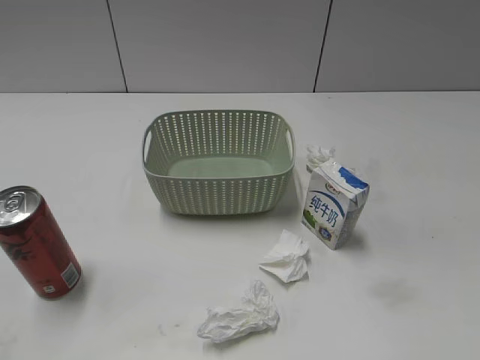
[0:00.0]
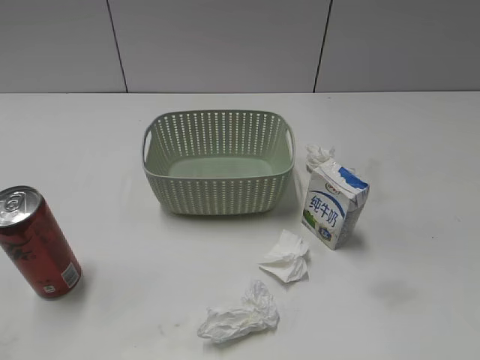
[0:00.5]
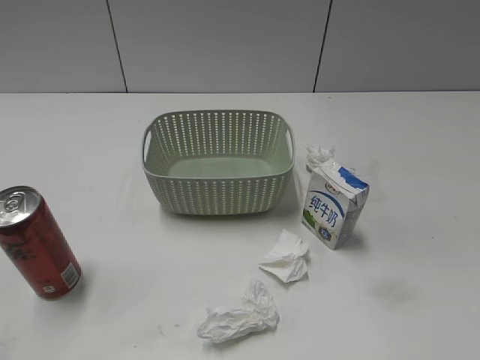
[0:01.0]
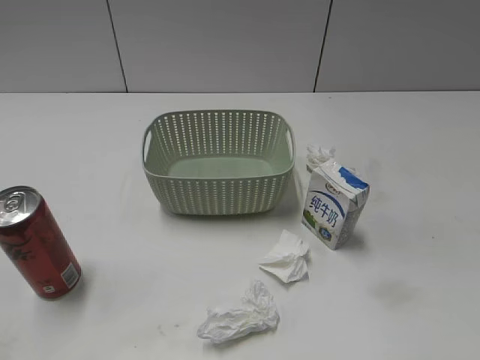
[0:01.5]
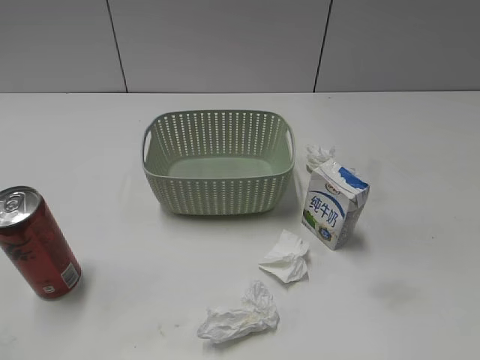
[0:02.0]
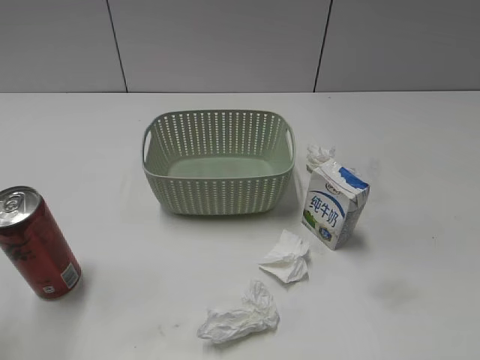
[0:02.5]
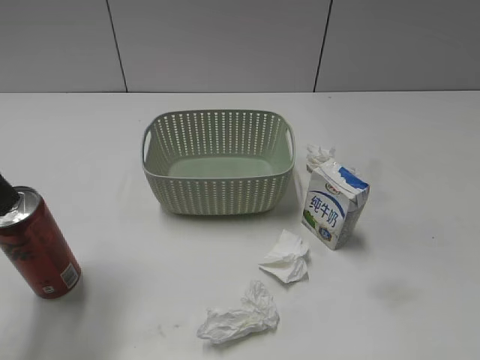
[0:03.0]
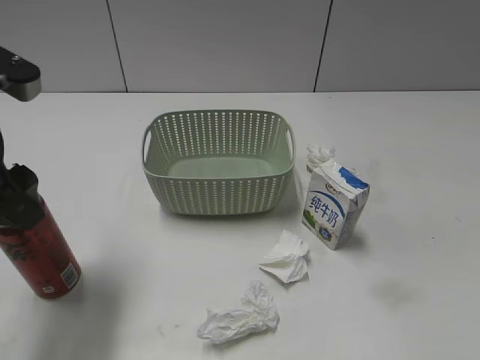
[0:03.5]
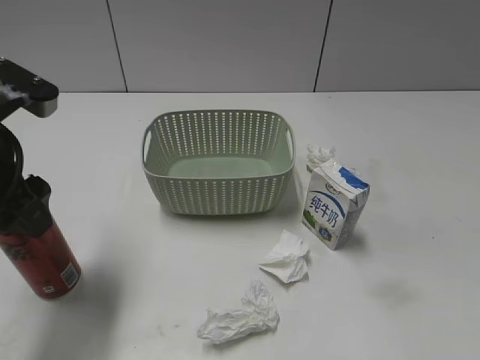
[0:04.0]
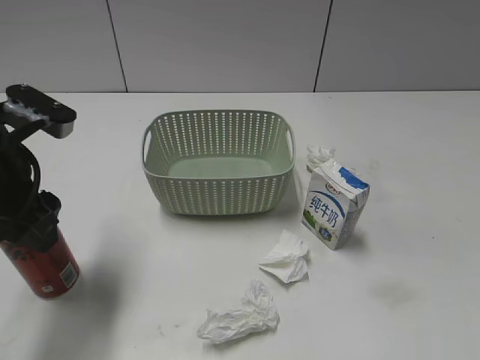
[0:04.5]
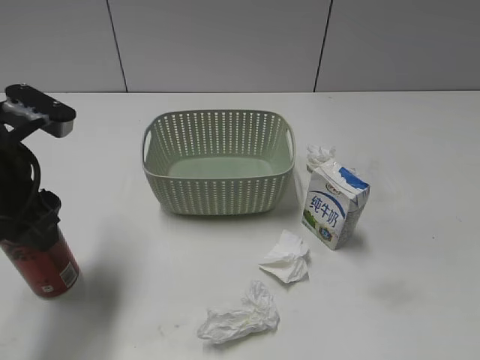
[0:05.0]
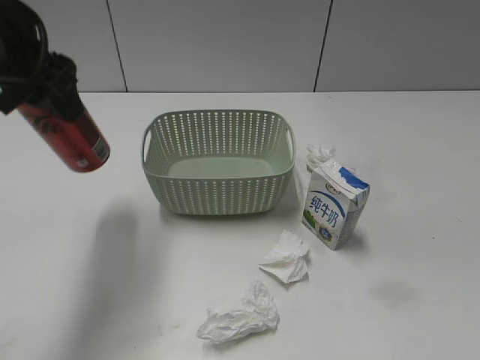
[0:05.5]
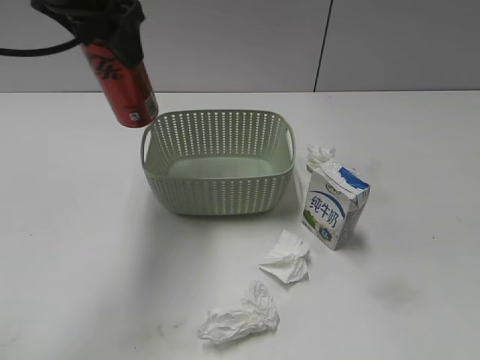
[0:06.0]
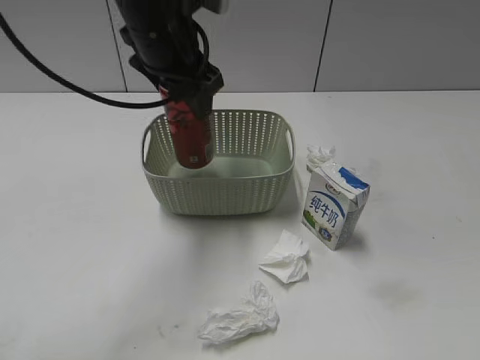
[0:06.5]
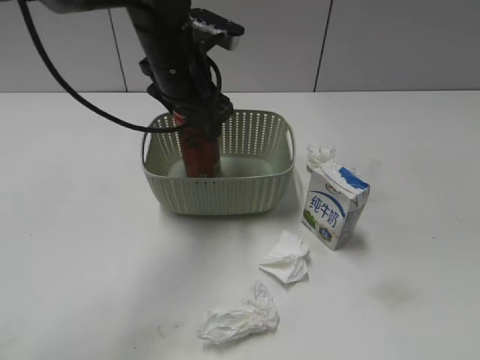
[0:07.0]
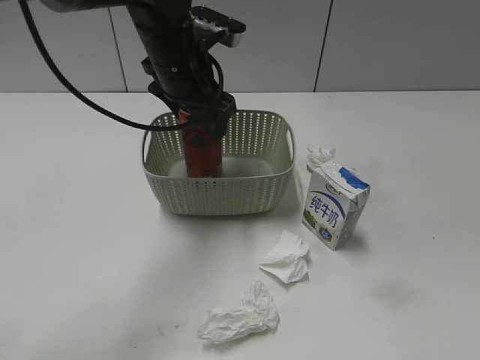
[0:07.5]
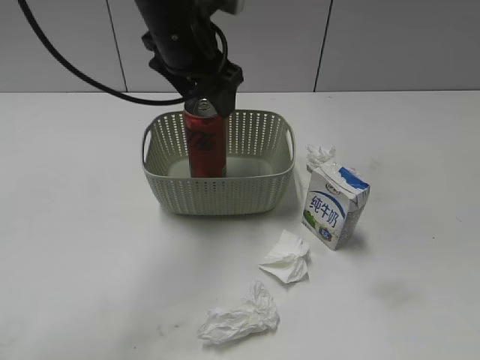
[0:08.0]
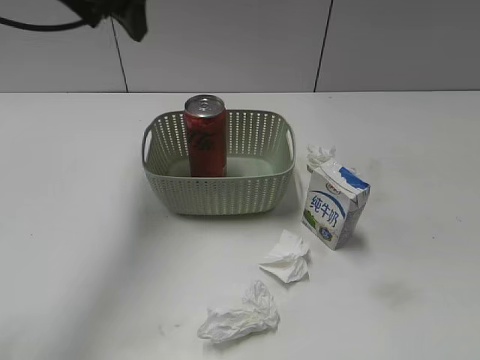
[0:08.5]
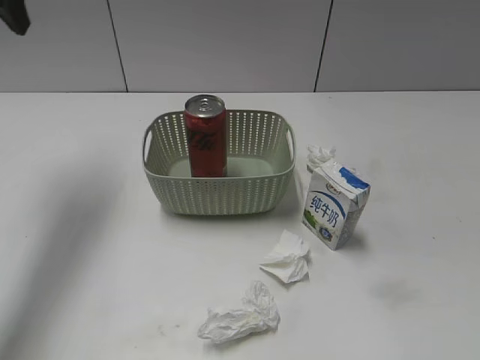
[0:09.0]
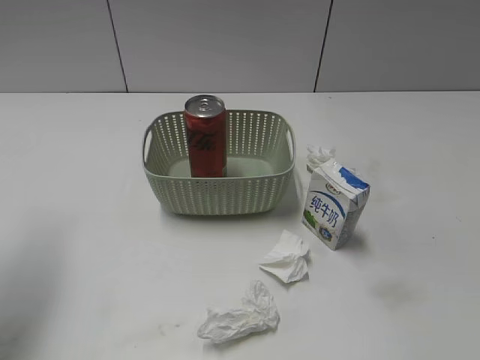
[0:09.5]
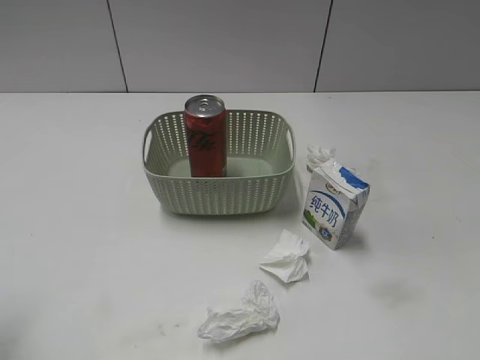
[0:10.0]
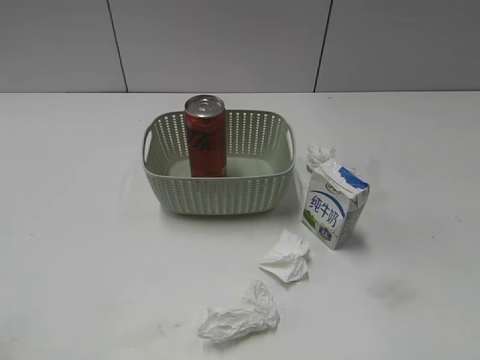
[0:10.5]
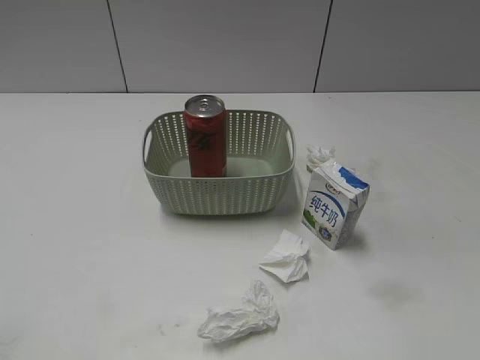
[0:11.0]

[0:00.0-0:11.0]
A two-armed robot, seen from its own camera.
Step, 0:03.0 to 0:04.5: Grasp the cola can with left gripper.
Step, 0:05.0 to 0:08.0: Place the cola can in the basket with left gripper.
0:02.0 to 0:03.5: The left gripper heads forward and to the right, covering roughly 20 cm.
0:03.5 to 0:05.5: The left gripper heads forward and upward, covering roughly 10 cm, and closes up.
0:05.5 to 0:07.5: The left gripper heads to the right, forward and downward, covering approximately 20 cm, and opens.
0:07.5 to 0:09.0: The left gripper travels to the left and upward by approximately 25 cm.
0:09.0 to 0:11.0: The left gripper moves backward, about 35 cm.

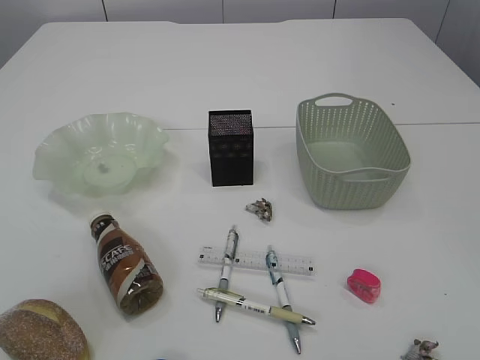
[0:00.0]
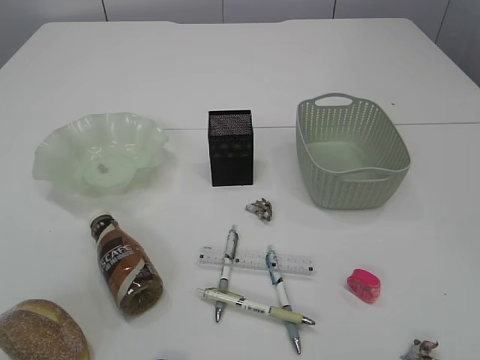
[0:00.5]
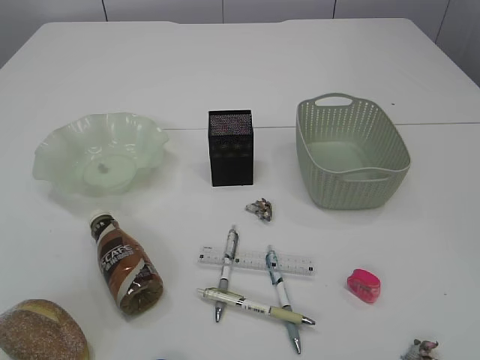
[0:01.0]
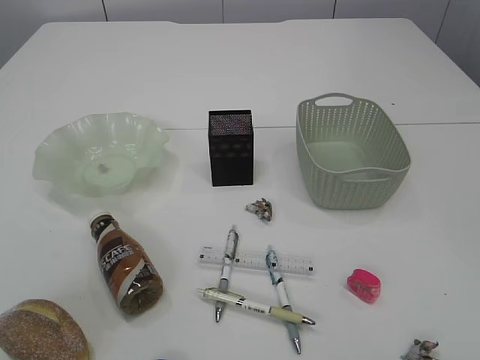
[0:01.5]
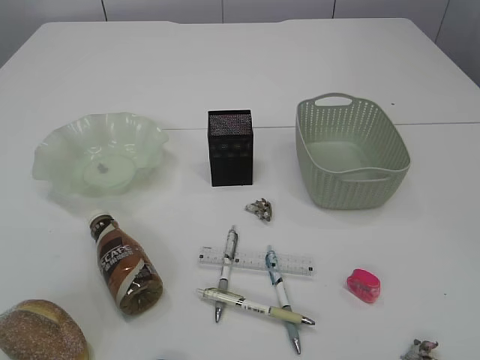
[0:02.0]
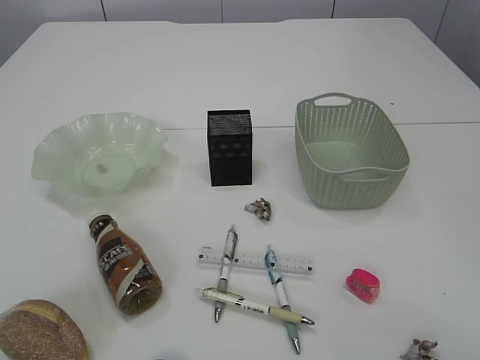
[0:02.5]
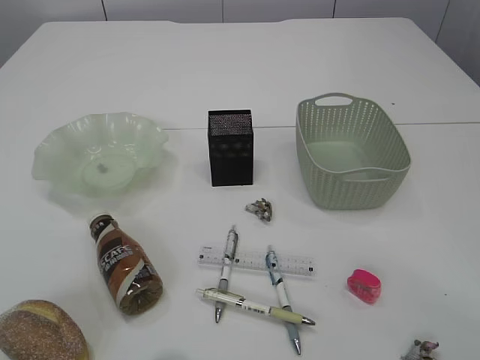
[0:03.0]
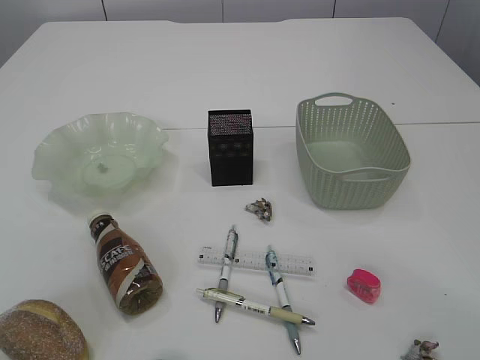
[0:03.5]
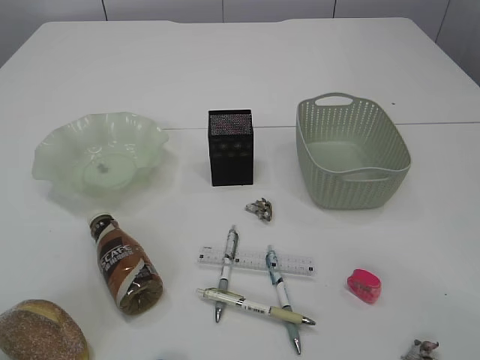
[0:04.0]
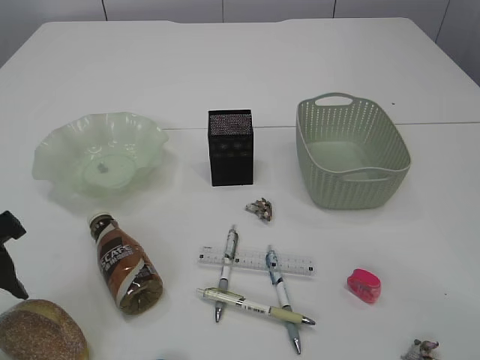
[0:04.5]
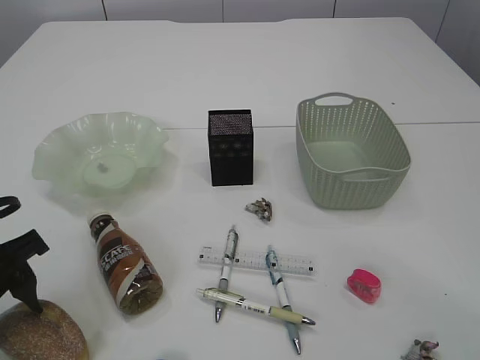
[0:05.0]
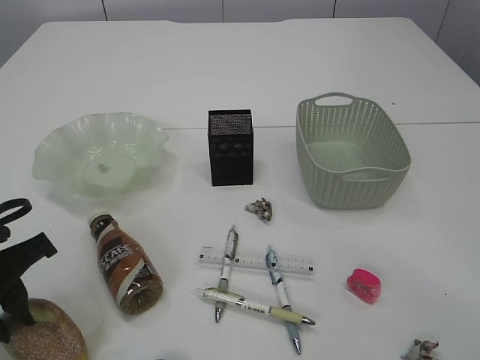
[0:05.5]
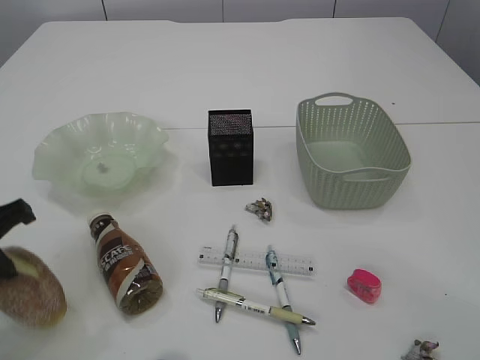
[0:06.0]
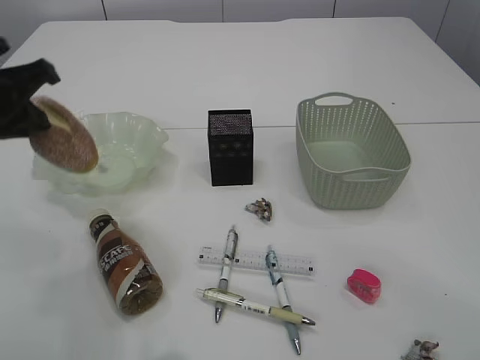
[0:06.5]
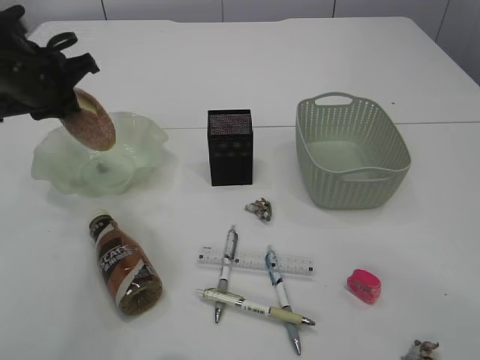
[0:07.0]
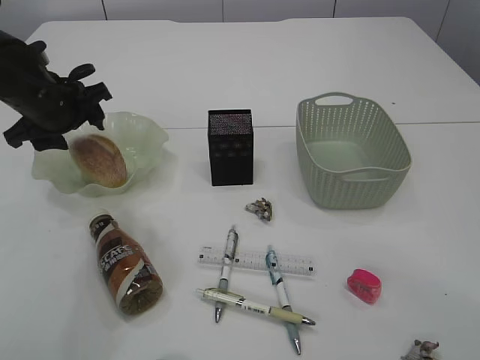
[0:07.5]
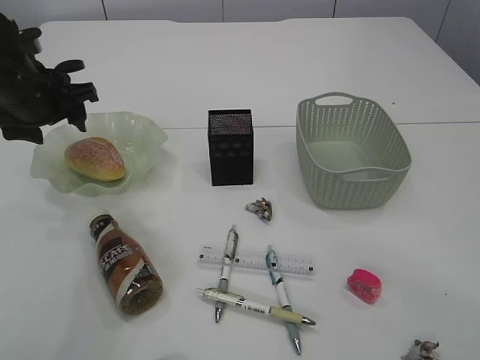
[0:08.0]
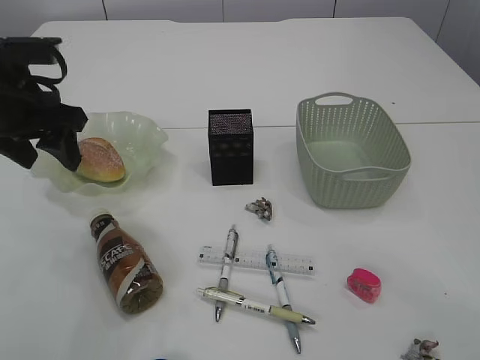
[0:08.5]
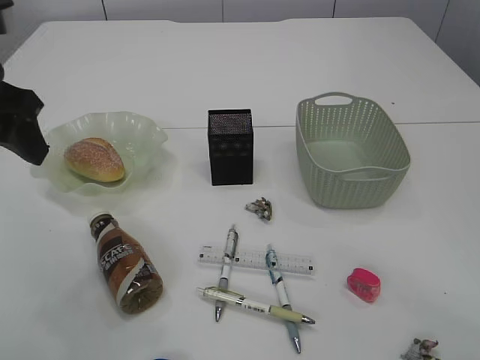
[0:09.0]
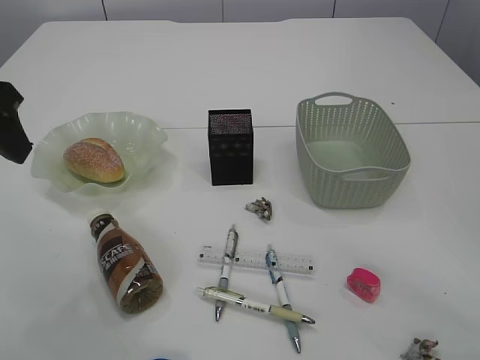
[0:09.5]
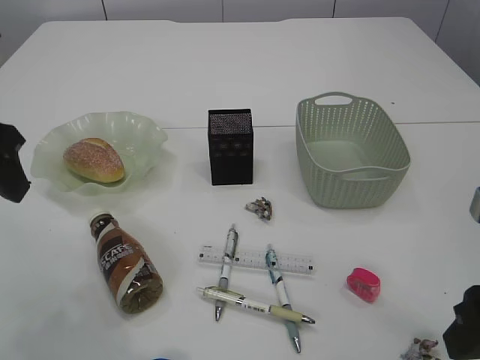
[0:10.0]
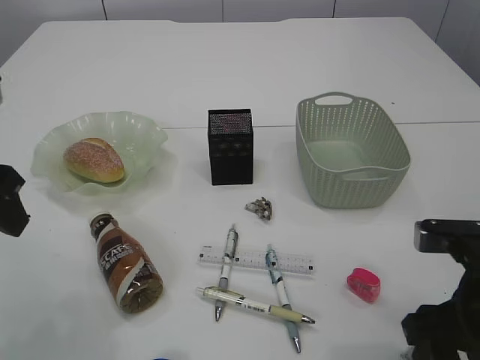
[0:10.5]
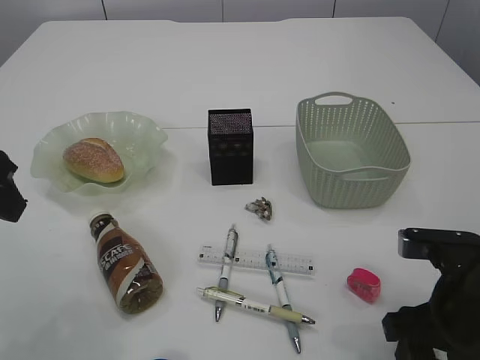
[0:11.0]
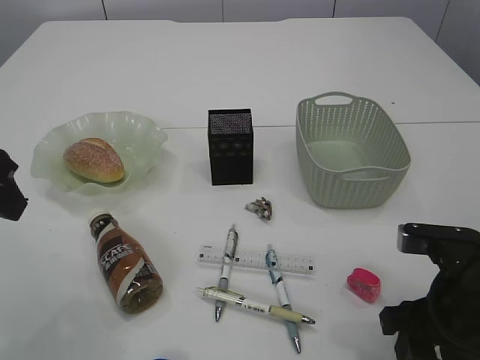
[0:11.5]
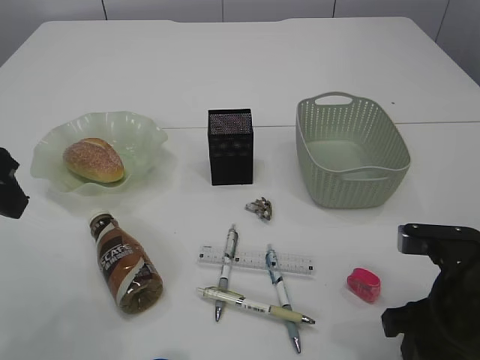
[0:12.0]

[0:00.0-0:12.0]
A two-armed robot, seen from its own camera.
Step, 0:06.5 to 0:09.0: place the bread in the plate.
0:04.0 to 0:06.0: The left gripper moves downward, approximately 5 cm, and closes up.
0:06.0 to 0:08.0: The left gripper moves forward, approximately 20 cm, and opens.
0:08.0 to 0:10.0: The left gripper travels backward and upward by roughly 15 cm. The right gripper is displaced downward and to the left by roughly 10 cm.
0:10.0 to 0:12.0: The right gripper heads downward, covering approximately 10 cm.

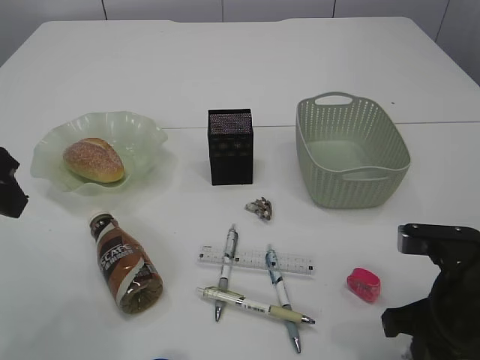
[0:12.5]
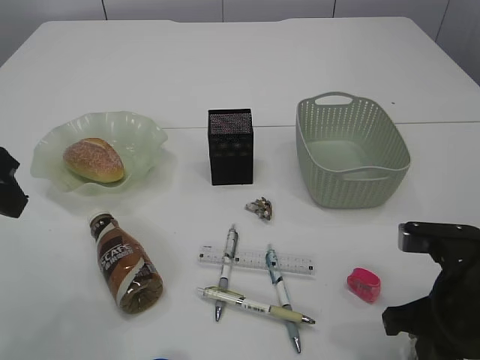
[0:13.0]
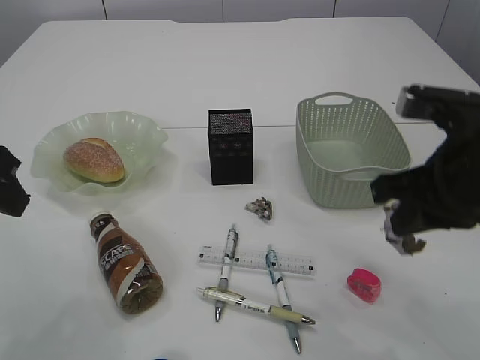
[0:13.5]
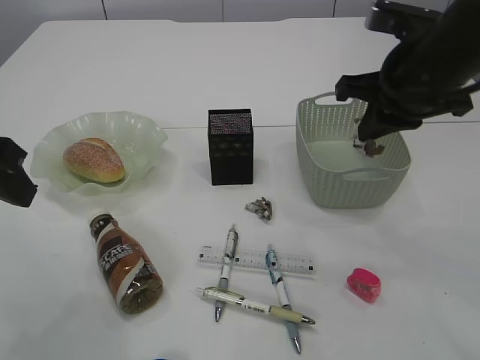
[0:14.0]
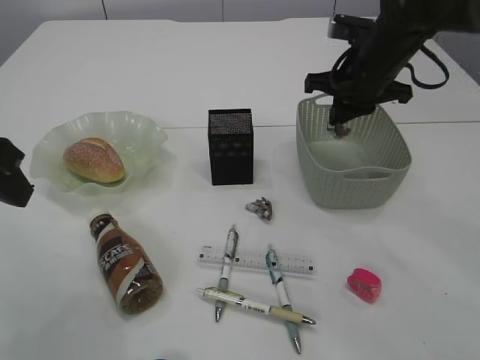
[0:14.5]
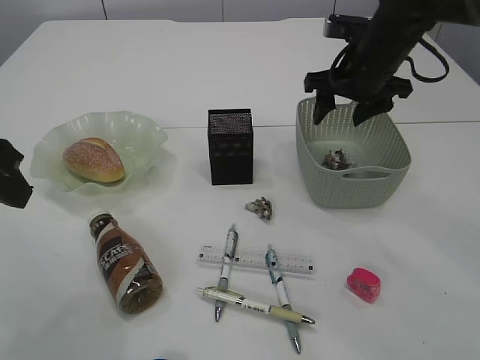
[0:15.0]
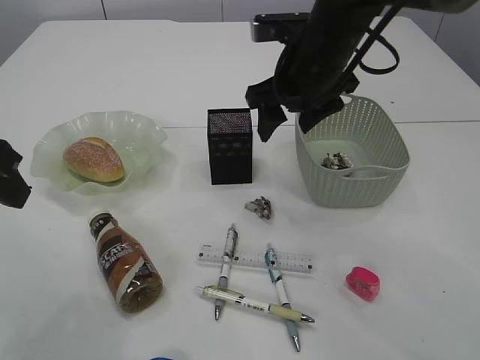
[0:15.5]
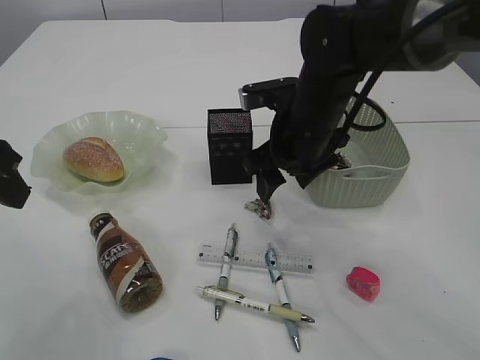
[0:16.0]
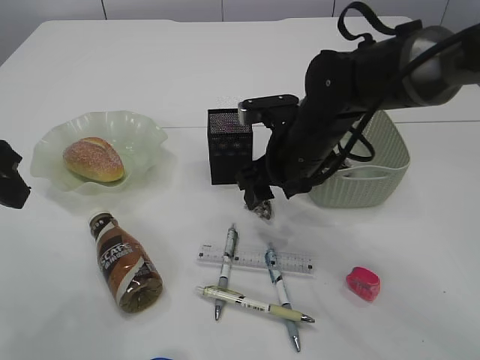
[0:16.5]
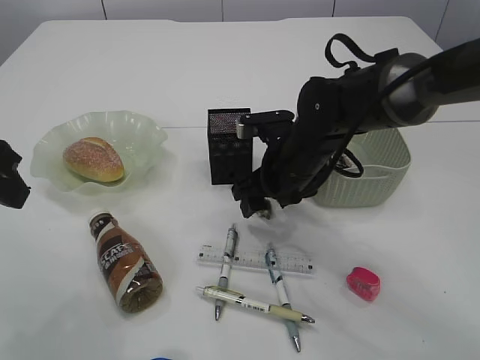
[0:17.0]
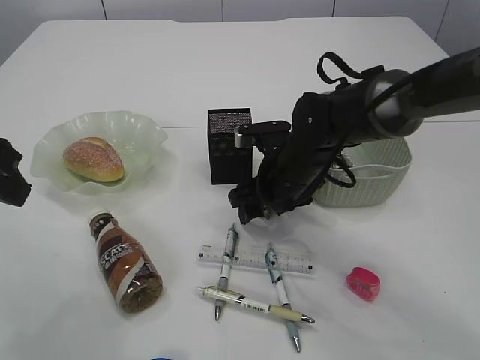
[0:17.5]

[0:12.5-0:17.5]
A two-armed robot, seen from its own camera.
Step, 0:14.0 to 0:15.0: Place the waste paper in the basket.
0:12.5 to 0:15.0: The right gripper goes roughly 30 cm forward and upward, and opens its fingers.
0:15.0 to 0:17.5: The right gripper shifts roughly 15 cm downward, to the left and backward.
